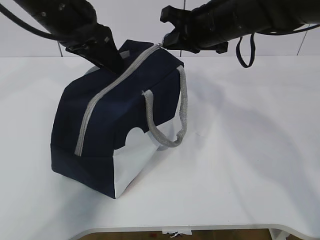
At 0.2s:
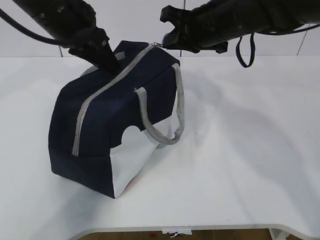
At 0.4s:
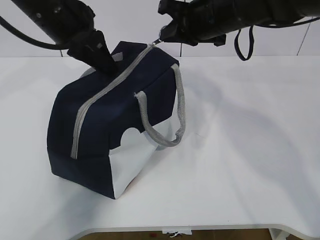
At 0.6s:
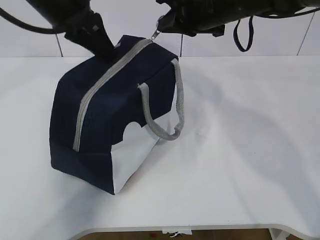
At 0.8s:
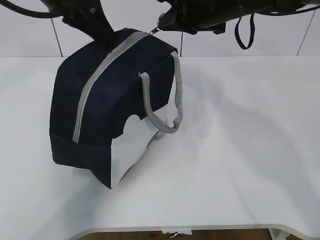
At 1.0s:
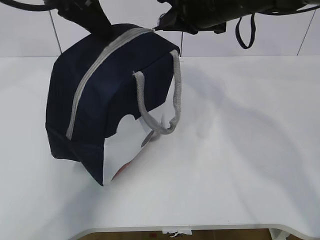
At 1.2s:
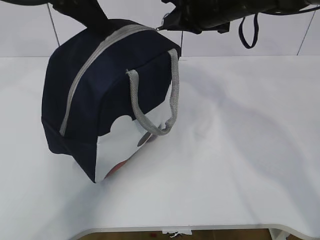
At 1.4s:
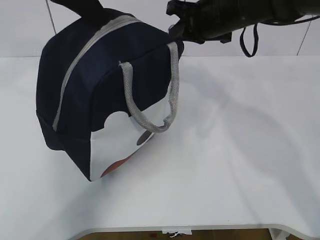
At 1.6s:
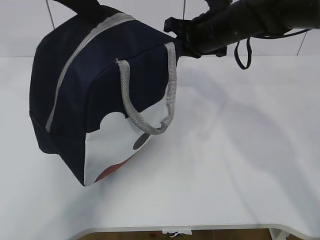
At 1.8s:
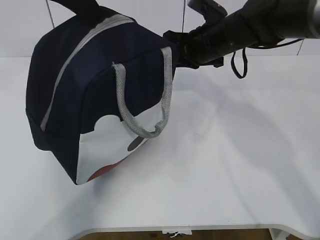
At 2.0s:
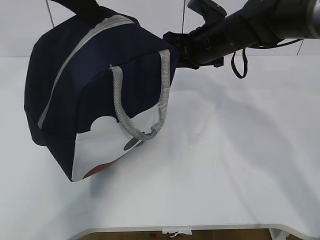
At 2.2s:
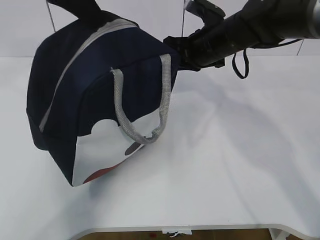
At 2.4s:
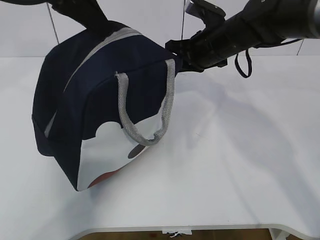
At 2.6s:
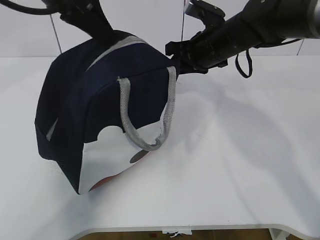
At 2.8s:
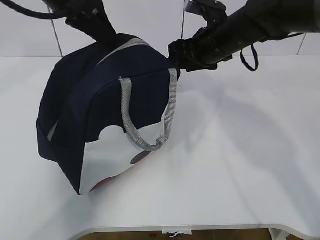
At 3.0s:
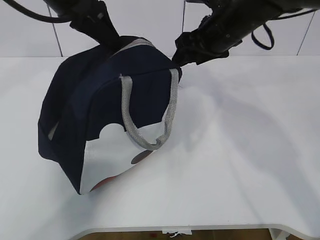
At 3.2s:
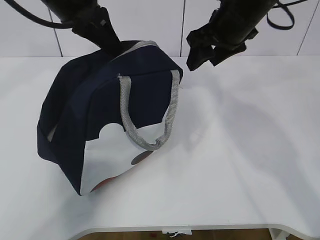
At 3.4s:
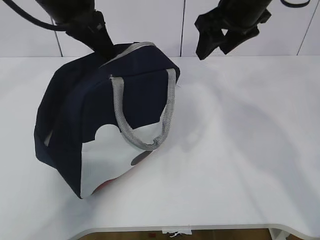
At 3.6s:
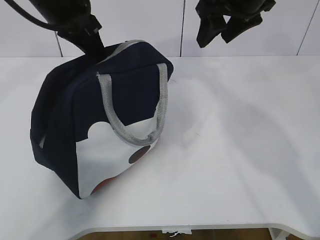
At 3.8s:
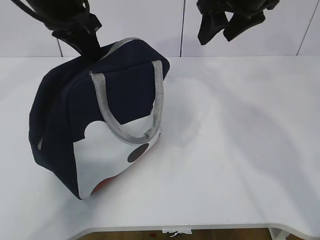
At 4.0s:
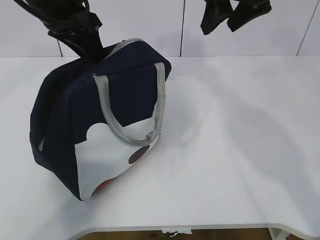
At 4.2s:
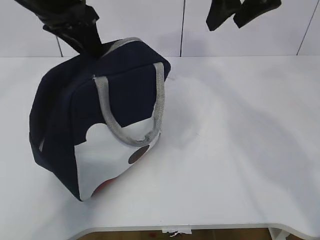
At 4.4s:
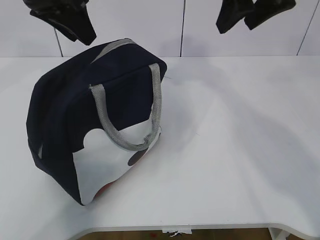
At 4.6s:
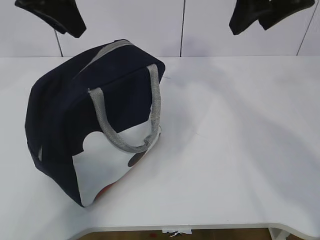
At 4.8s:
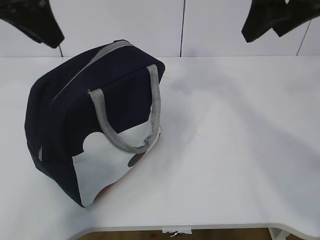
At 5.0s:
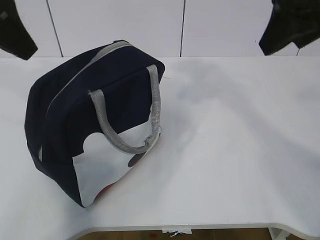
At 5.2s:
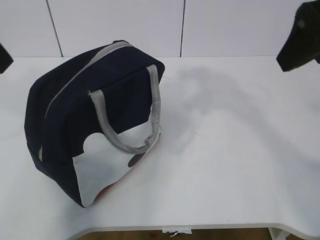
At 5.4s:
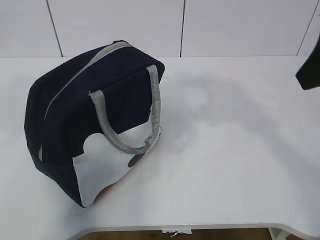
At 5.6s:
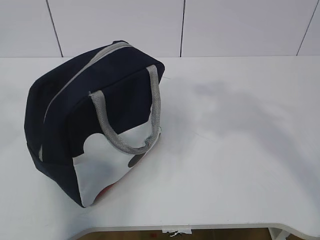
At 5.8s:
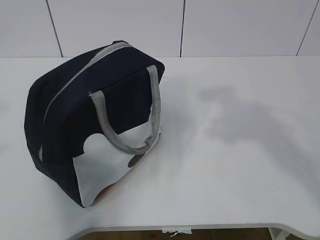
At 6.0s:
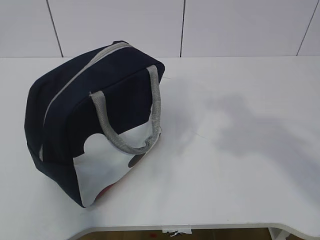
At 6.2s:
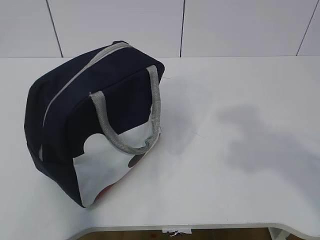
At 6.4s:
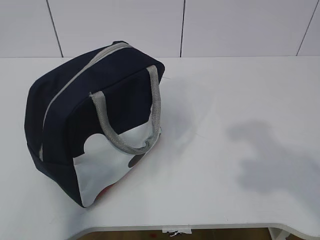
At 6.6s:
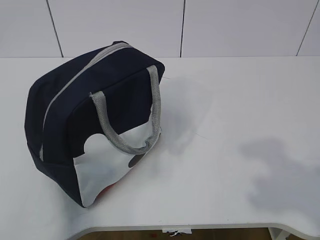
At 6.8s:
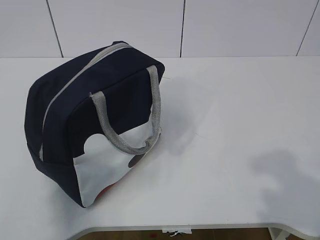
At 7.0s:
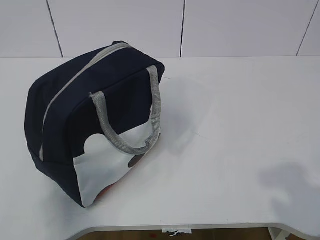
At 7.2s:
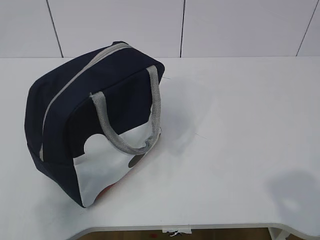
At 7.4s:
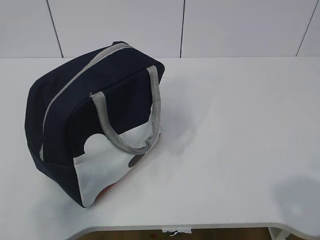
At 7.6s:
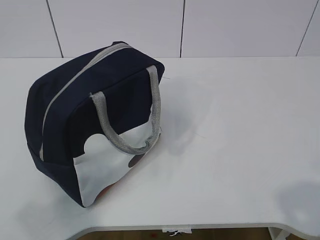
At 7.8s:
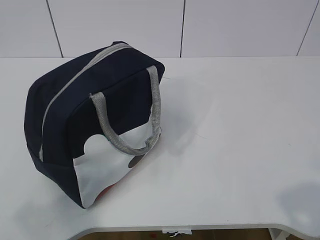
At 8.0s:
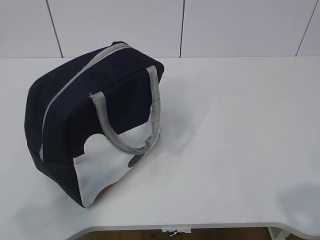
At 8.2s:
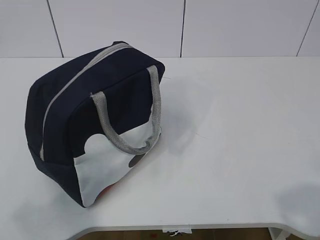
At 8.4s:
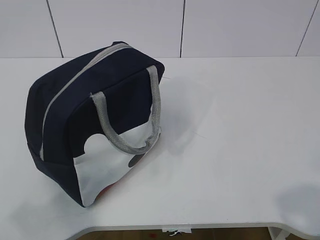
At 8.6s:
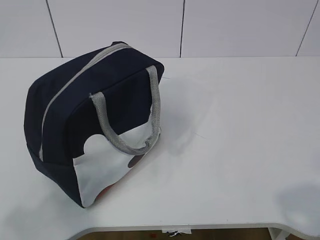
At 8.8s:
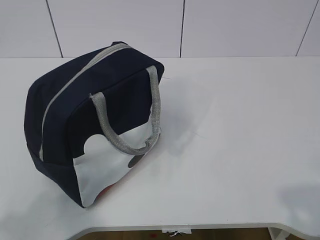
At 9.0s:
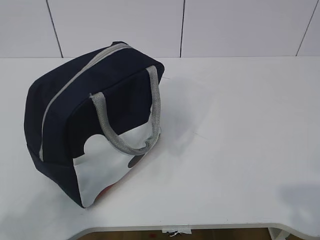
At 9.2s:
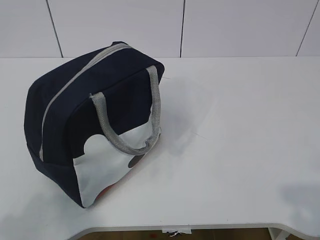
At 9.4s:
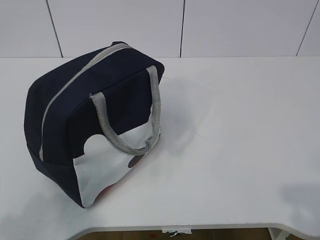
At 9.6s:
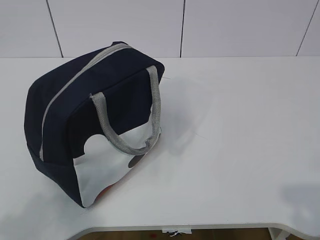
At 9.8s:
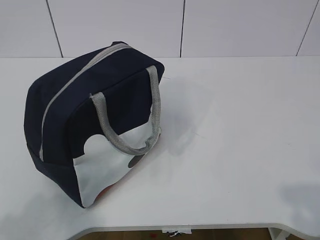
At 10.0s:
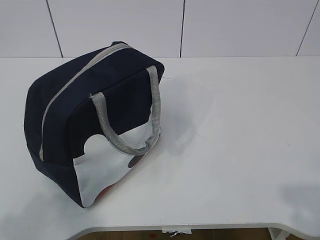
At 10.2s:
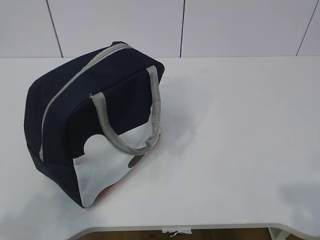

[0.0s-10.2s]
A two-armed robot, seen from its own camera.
0.0s to 1.4s: The left gripper goes about 5 cm upward, and closes up.
1.4s to 3.0s: The right gripper opens up, while the left gripper moves some 5 cm.
3.0s to 4.4s: The left gripper opens; the right gripper is displaced upward and backward by some 15 cm.
4.4s to 5.8s: The right gripper travels backward by roughly 20 cm, while the left gripper goes some 25 cm backward and to the left.
5.8s to 7.2s: Both grippers move backward and downward, roughly 15 cm.

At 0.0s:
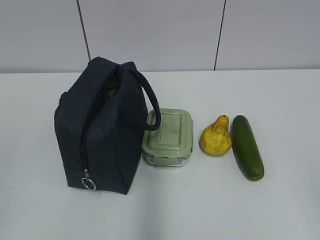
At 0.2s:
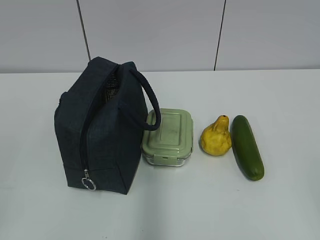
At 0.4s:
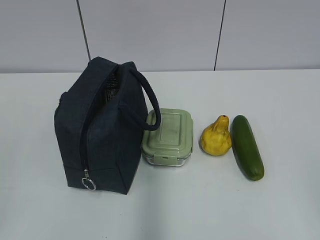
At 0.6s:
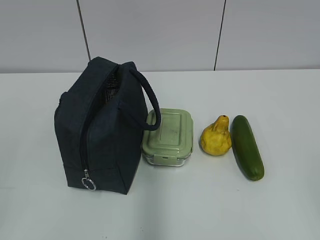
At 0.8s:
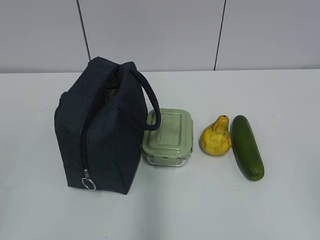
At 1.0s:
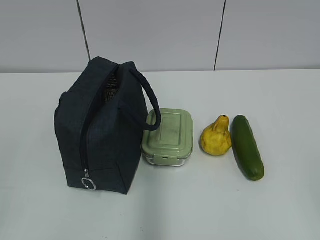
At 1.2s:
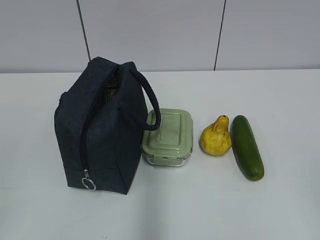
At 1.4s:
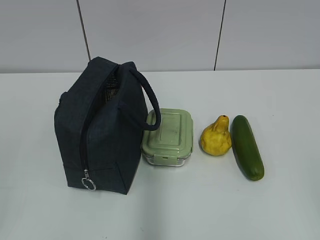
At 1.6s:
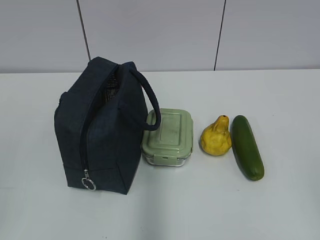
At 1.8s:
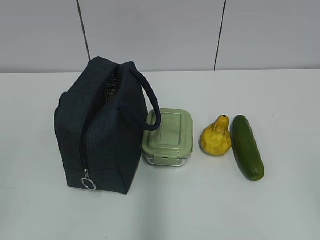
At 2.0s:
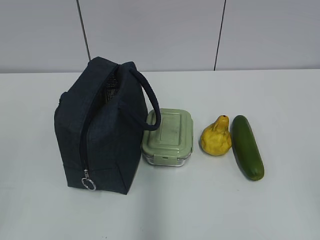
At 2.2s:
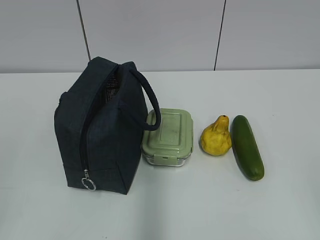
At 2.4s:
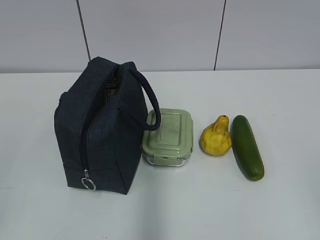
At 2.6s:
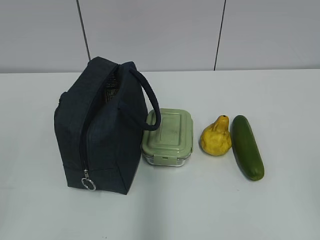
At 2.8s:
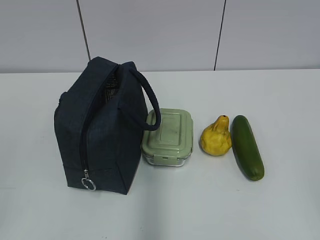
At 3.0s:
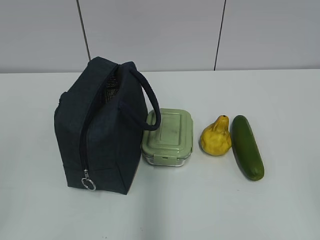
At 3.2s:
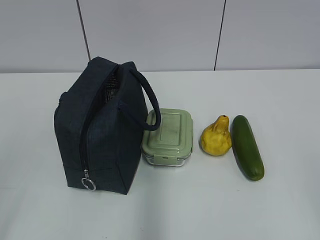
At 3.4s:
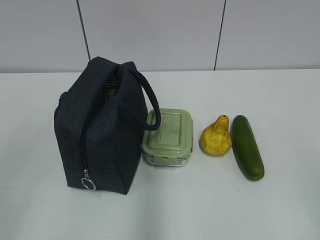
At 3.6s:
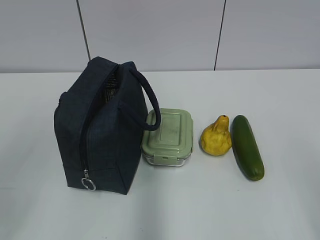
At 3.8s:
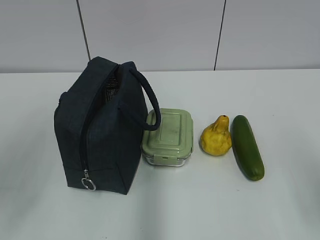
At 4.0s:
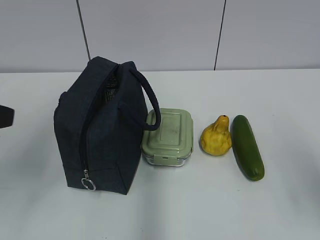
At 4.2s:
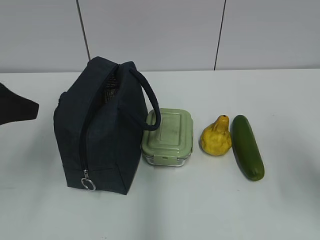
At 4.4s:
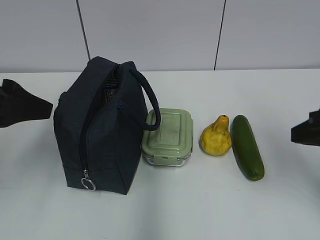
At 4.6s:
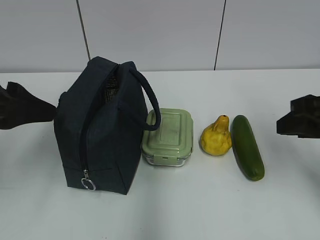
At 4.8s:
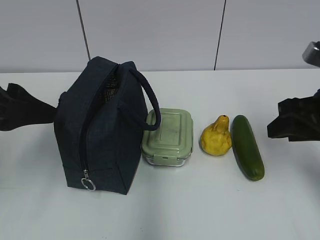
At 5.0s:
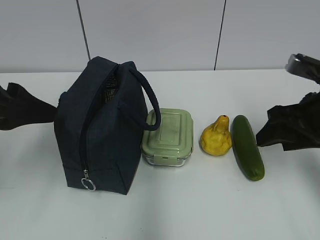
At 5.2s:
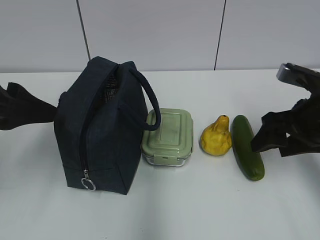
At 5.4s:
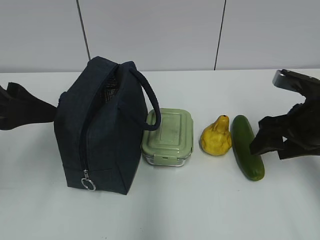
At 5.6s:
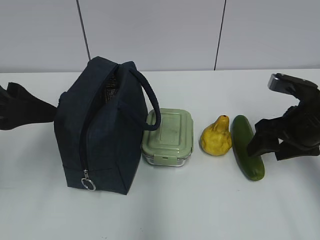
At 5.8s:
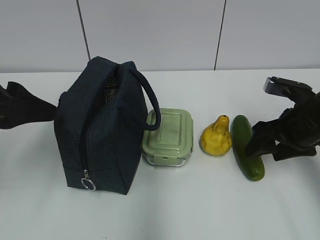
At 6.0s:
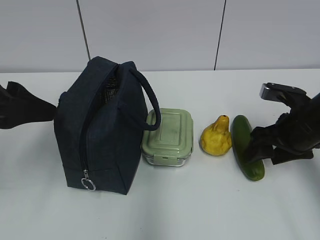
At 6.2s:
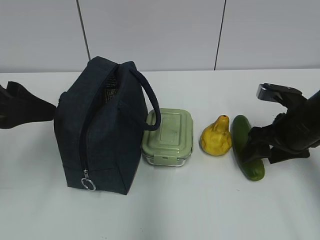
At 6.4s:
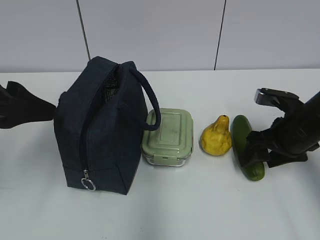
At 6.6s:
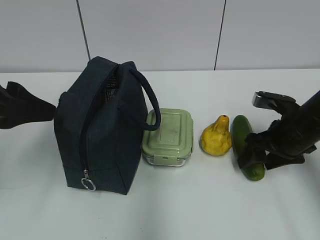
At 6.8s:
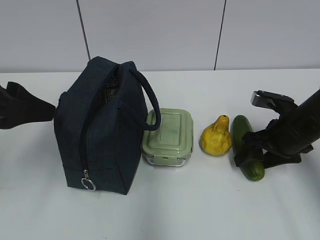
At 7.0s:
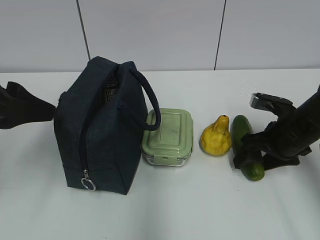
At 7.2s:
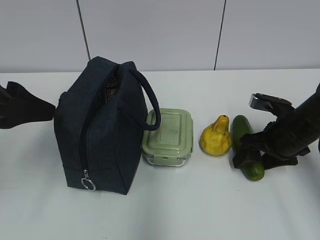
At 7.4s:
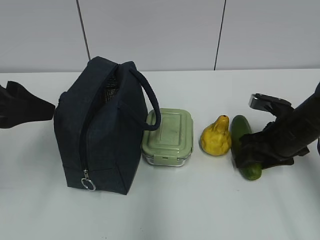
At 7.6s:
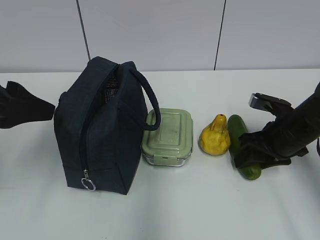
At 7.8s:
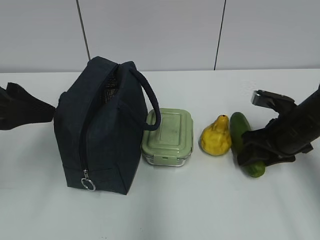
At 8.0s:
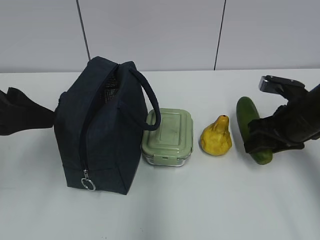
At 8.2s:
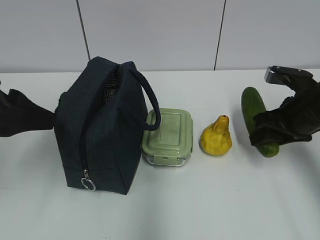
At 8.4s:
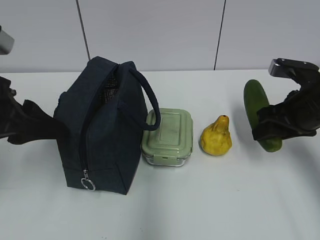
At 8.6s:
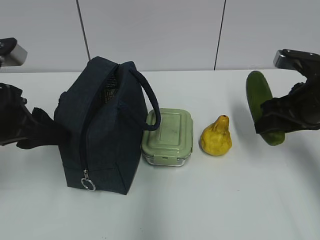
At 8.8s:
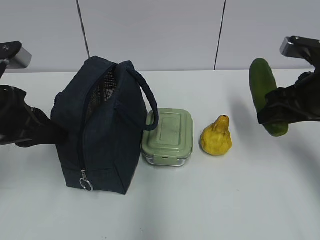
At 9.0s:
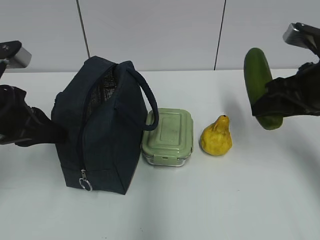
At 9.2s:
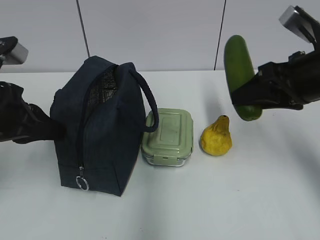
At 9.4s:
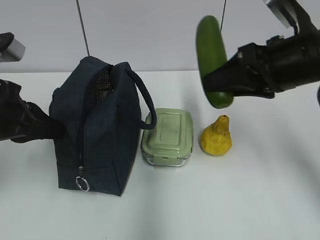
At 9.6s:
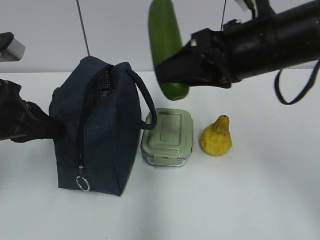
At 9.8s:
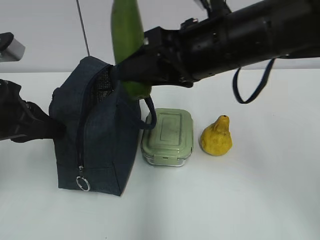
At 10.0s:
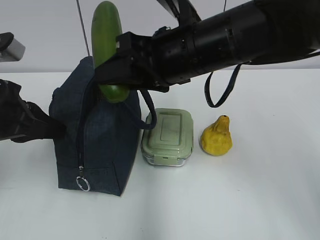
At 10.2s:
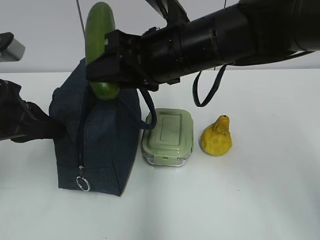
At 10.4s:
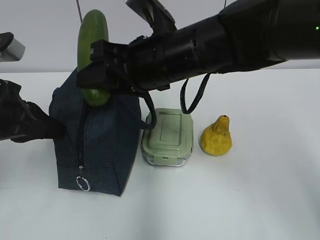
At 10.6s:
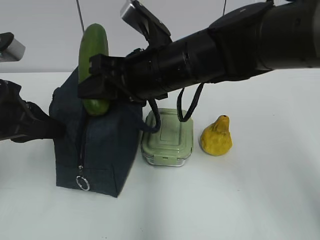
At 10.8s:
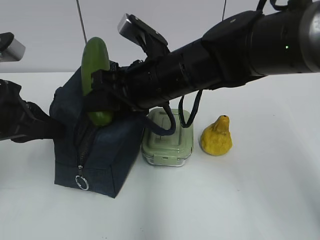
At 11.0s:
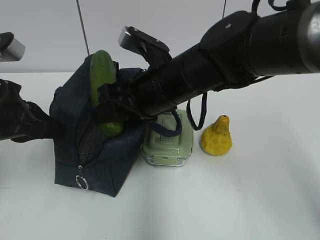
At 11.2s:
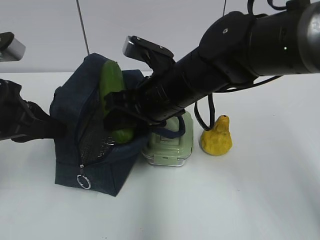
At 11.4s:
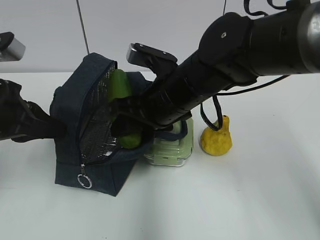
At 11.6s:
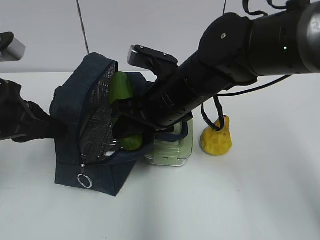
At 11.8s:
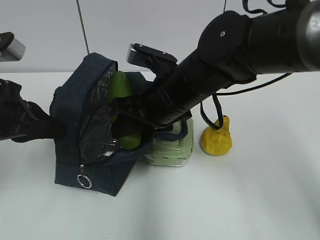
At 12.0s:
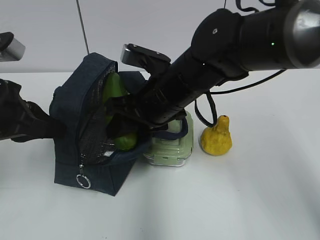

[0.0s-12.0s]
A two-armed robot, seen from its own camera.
1.6s to 3.0s: Neither gripper changes place.
3.0s to 4.4s: Both grippers move forward, some 20 cm.
4.4s to 6.0s: The right gripper moves forward and downward, about 15 cm, and opens up.
6.0s to 7.6s: The right gripper closes.
7.6s to 9.0s: The right gripper heads upward, covering roughly 15 cm, while the left gripper ends up about 5 cm from where it was, and closes up.
9.0s to 10.4s: The right gripper is displaced to the left by some 20 cm.
10.4s to 12.0s: The right gripper moves downward, roughly 5 cm.
